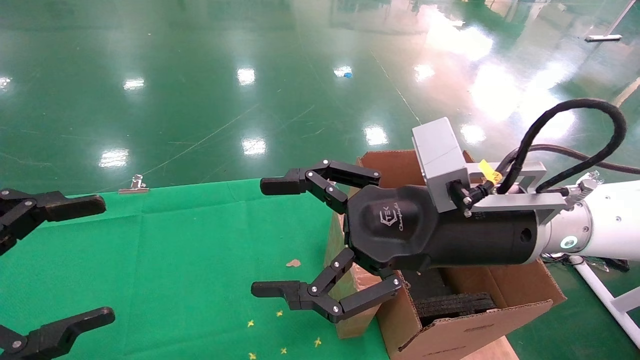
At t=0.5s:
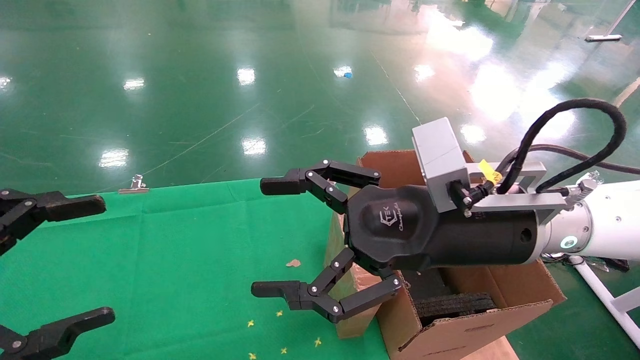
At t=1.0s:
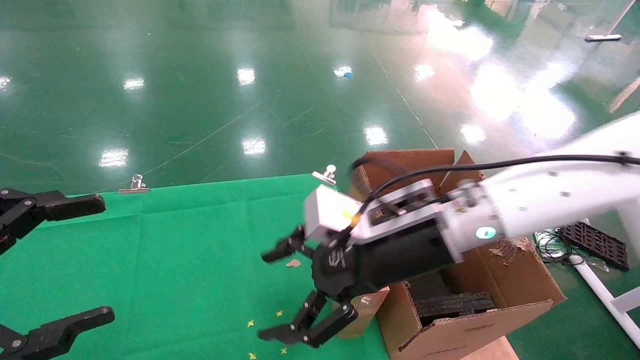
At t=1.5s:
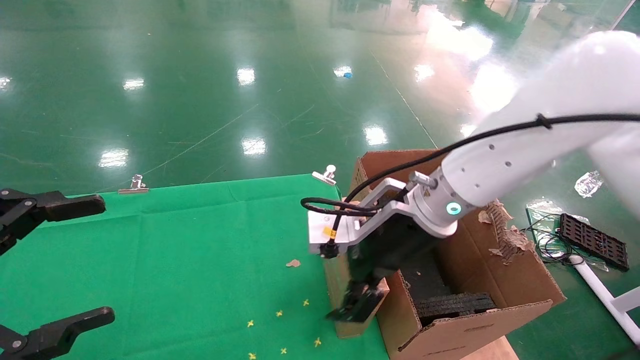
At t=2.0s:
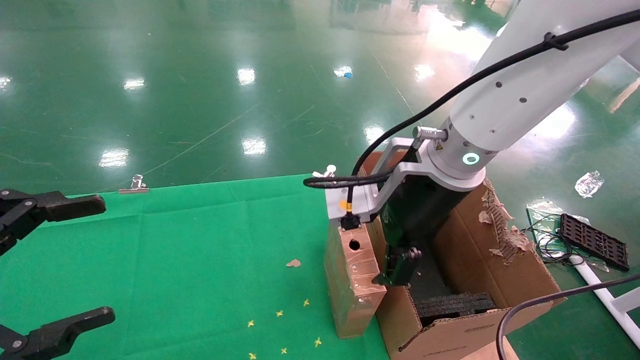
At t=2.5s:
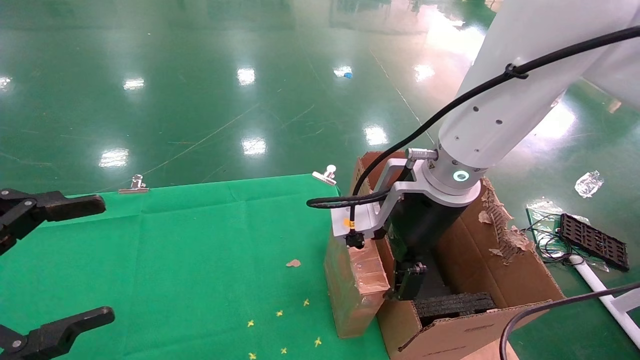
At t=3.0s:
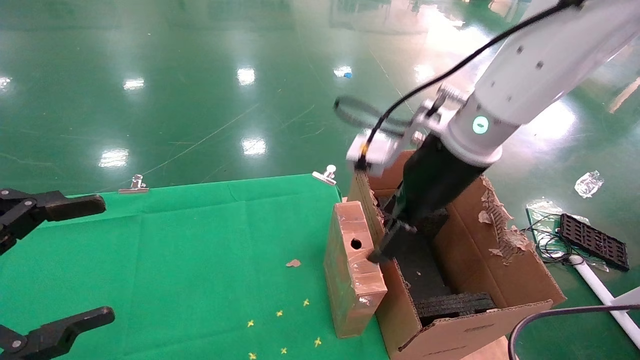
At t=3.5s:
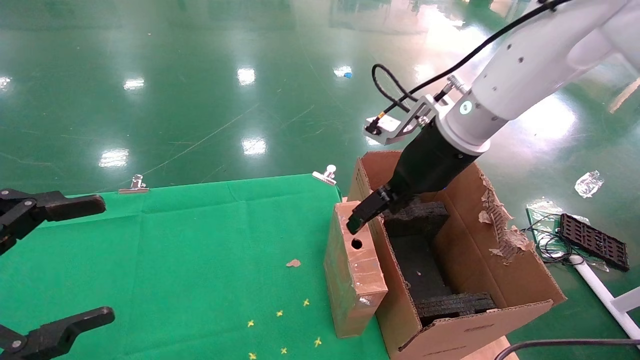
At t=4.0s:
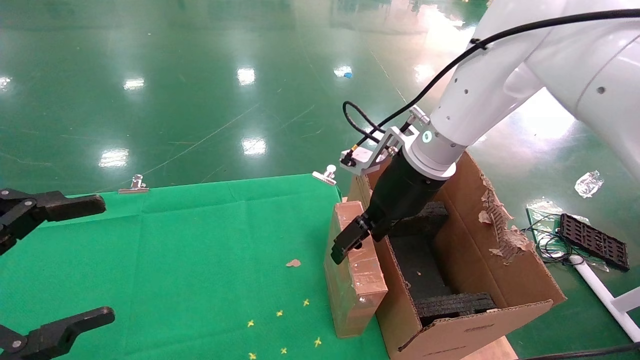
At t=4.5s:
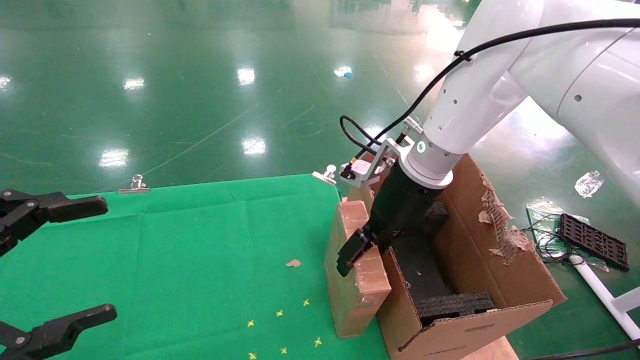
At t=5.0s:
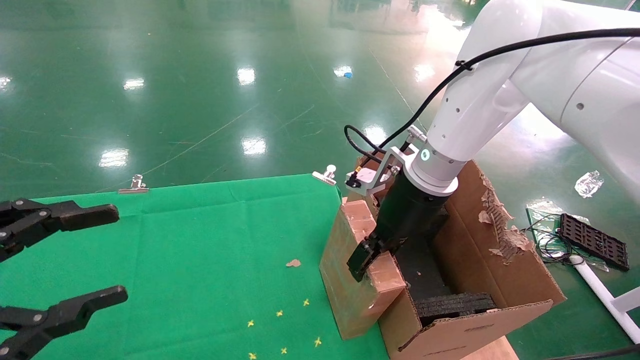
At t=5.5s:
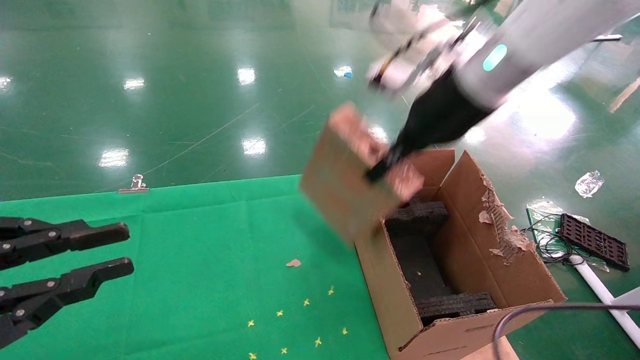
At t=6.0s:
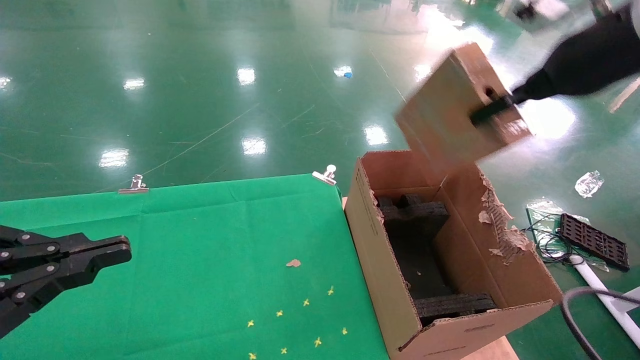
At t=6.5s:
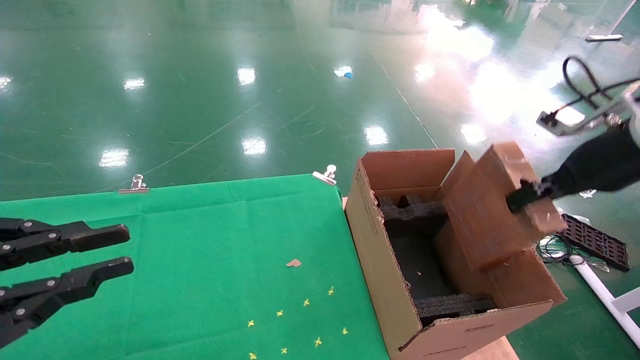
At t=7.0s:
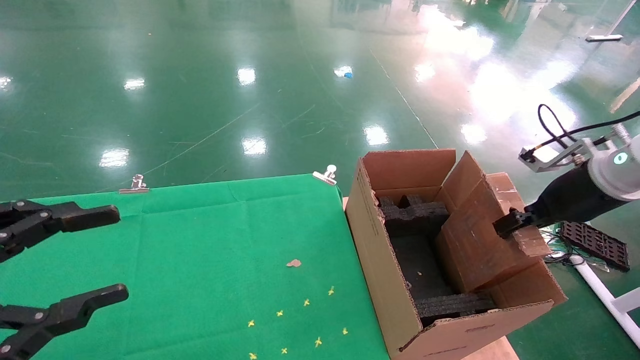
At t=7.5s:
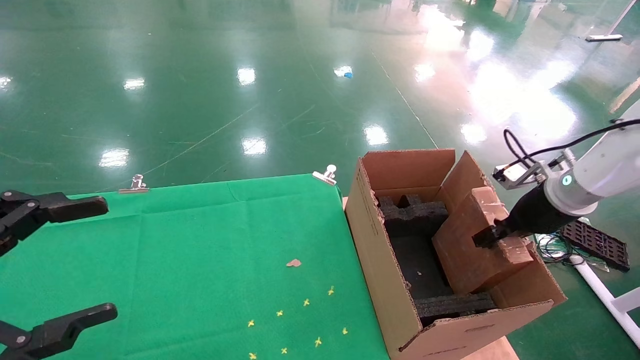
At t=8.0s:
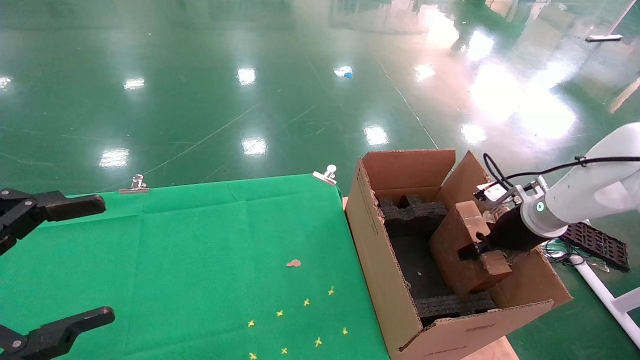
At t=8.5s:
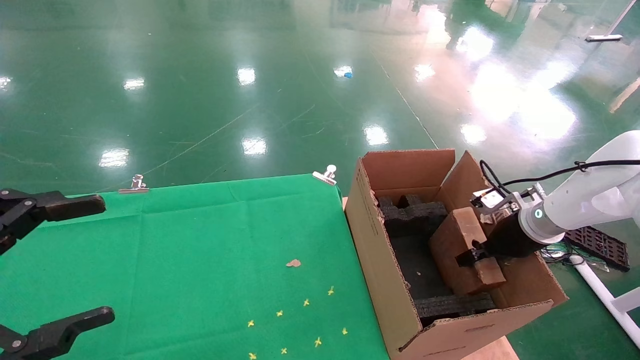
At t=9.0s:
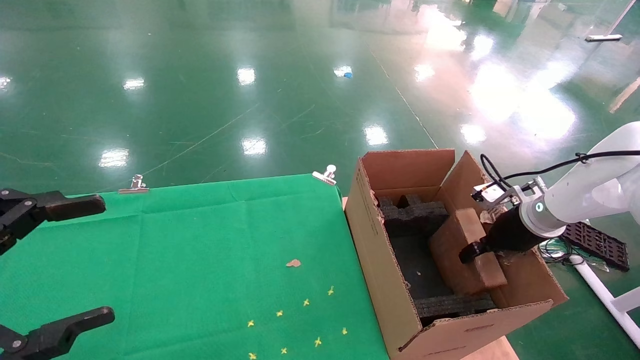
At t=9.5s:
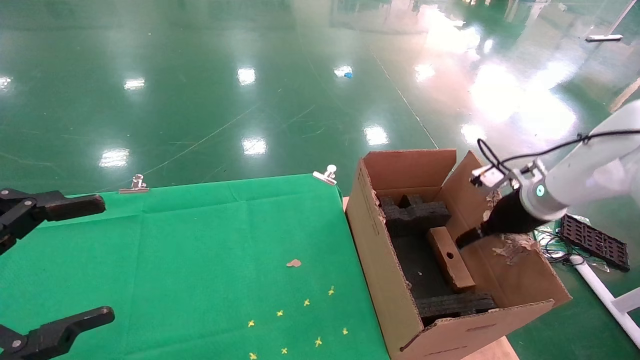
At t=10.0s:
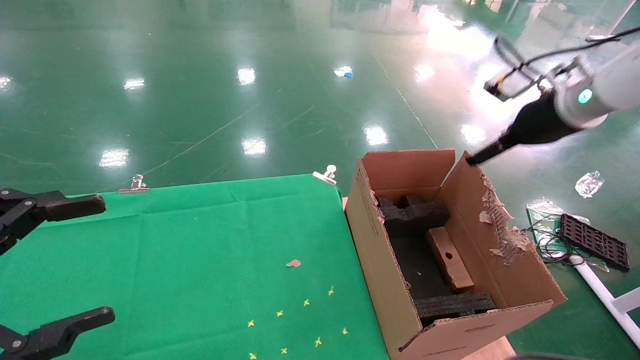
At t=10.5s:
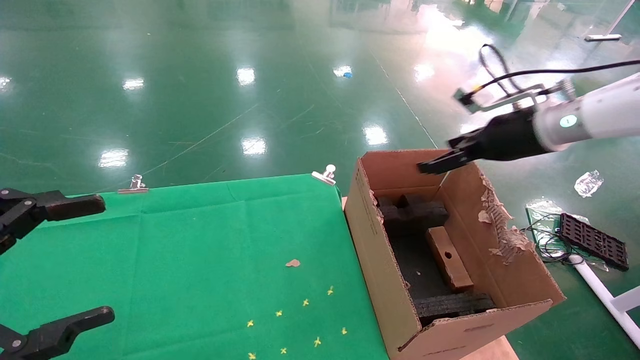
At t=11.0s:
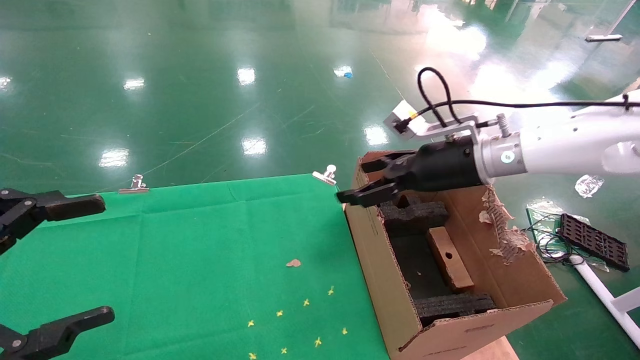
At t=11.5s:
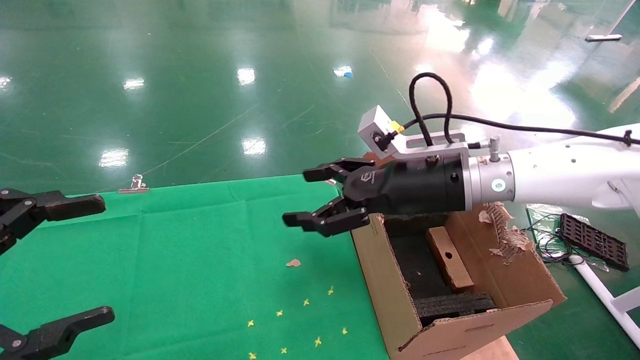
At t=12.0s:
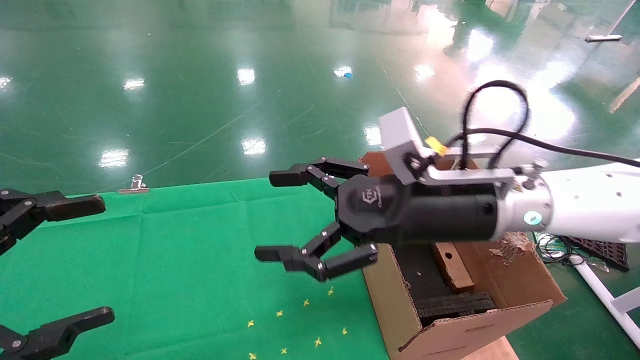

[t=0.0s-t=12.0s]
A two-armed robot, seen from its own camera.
Task of the whole recording: using a robotic arm to pick up a cardboard box and palace it the carton.
Step, t=1.0s to t=5.5s: Pick up the mouse and the power cord paper box.
Step, t=6.0s to t=10.5s: Place the mouse and the power cord paper box into the container.
t=0.0s to t=2.0s: The right gripper shifts approximately 5 cm forward.
t=2.0s to t=4.0s: The right gripper shifts approximately 10 cm forward.
t=4.0s to t=6.0s: The right gripper is displaced to the right, upward and backward by roughly 25 cm, and closes. The left gripper closes its fingers.
t=6.0s to t=8.0s: The left gripper opens its fingers; the right gripper is displaced downward by about 25 cm.
t=8.0s to t=10.0s: The right gripper shifts about 15 cm upward, and opens its fingers.
t=10.0s to t=12.0s: The right gripper is displaced to the left and backward by approximately 25 cm.

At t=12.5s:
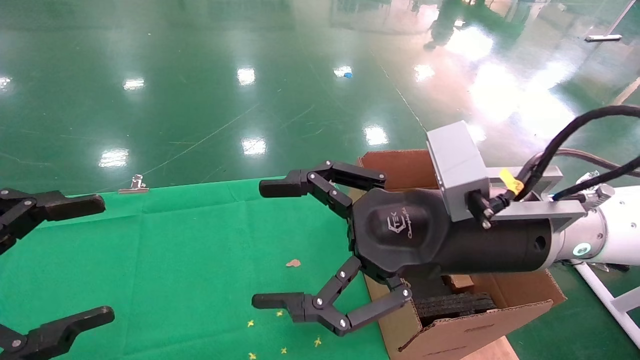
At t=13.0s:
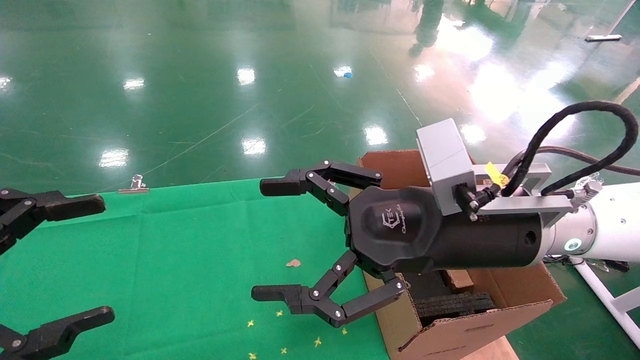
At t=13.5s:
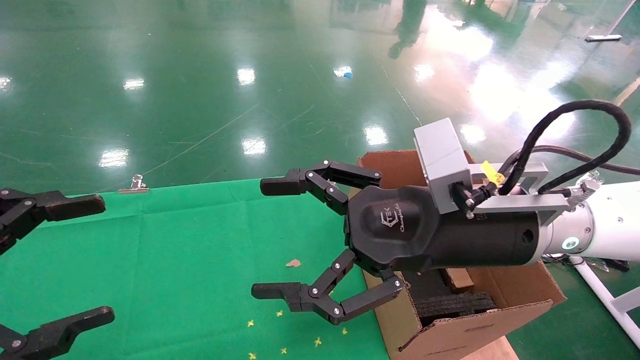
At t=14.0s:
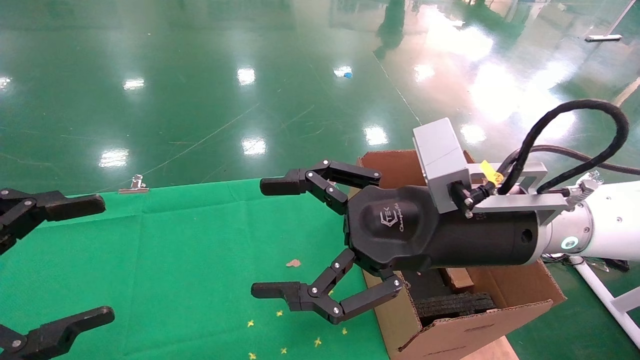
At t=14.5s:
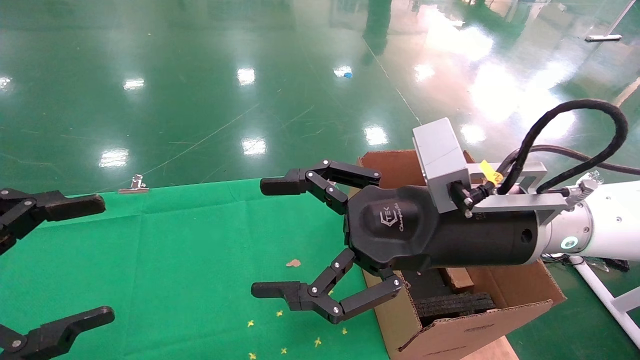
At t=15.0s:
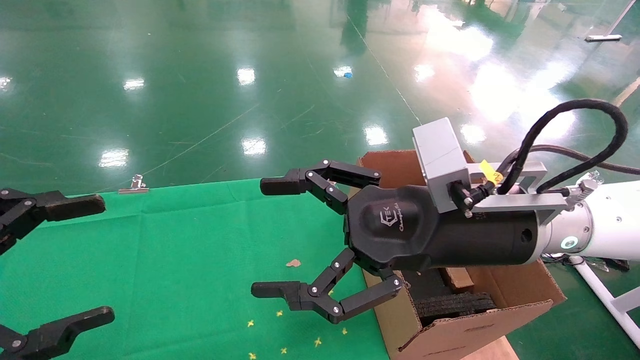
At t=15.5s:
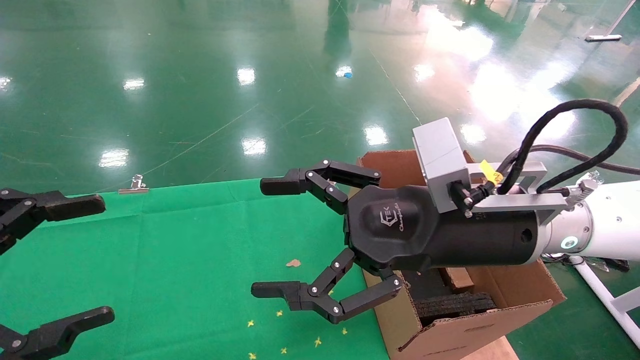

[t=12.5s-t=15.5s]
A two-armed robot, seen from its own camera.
Task of the whole recording: using a robotic arm to pick up a cardboard box and palace it the carton.
t=12.5s to t=15.5s: Both grippers stay about where they are.
